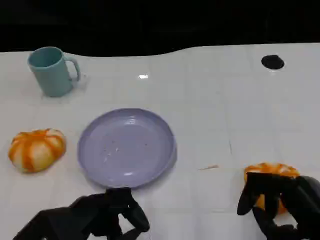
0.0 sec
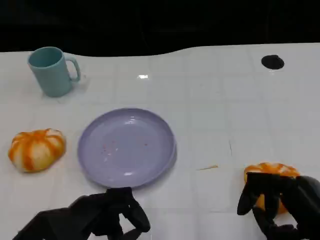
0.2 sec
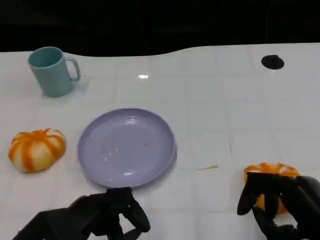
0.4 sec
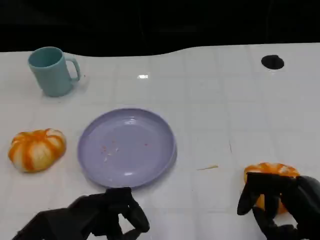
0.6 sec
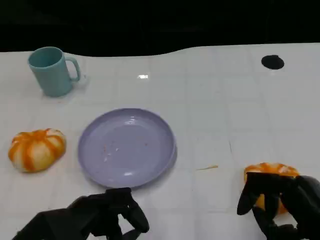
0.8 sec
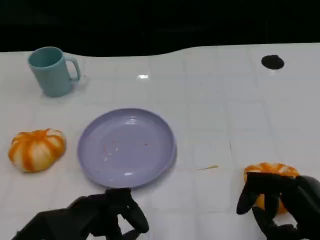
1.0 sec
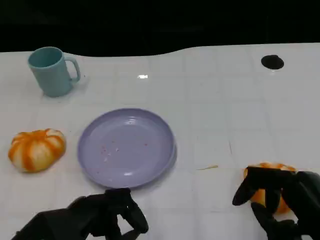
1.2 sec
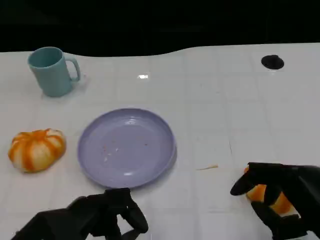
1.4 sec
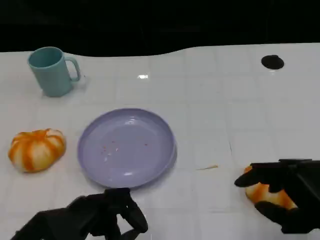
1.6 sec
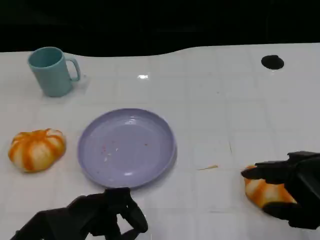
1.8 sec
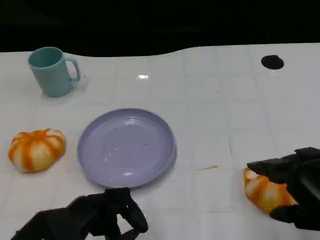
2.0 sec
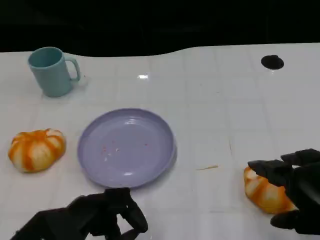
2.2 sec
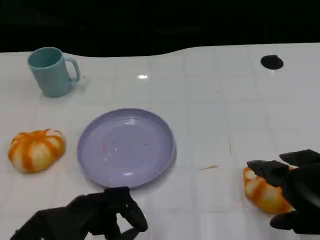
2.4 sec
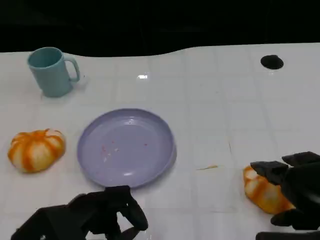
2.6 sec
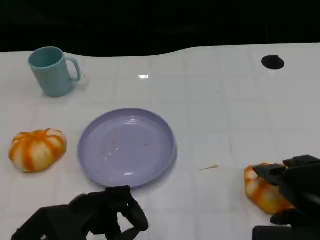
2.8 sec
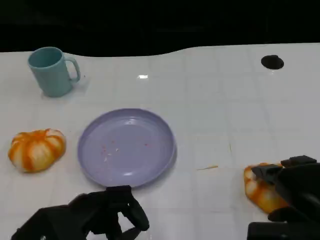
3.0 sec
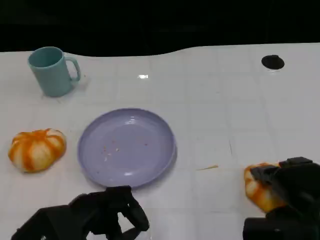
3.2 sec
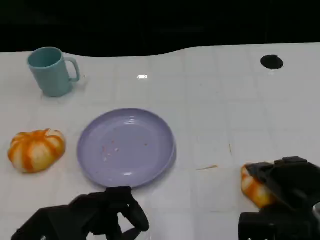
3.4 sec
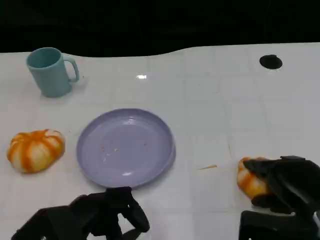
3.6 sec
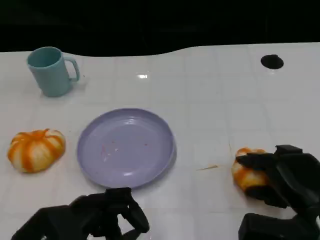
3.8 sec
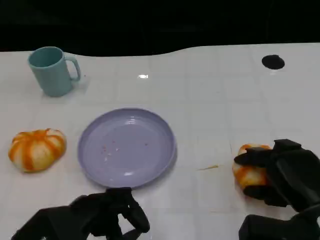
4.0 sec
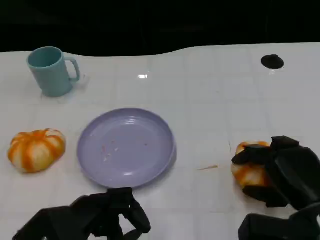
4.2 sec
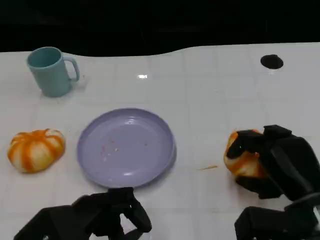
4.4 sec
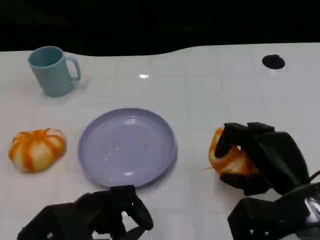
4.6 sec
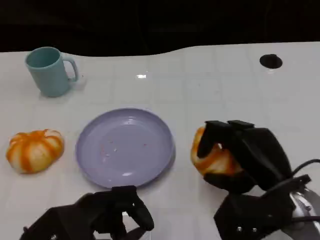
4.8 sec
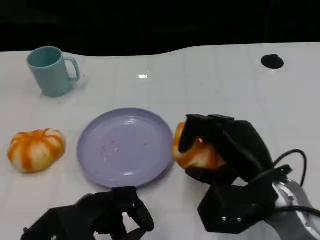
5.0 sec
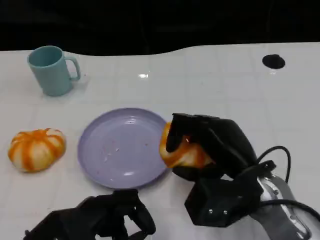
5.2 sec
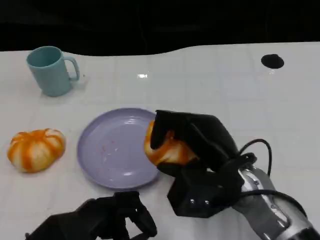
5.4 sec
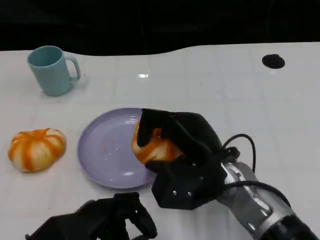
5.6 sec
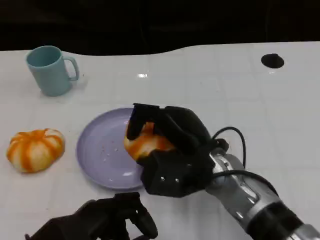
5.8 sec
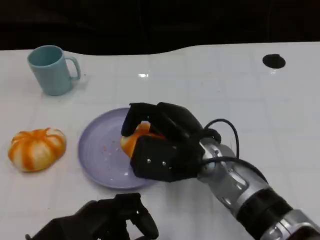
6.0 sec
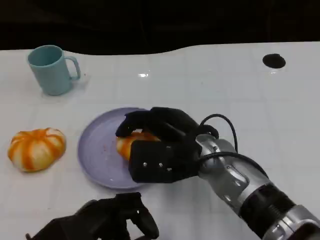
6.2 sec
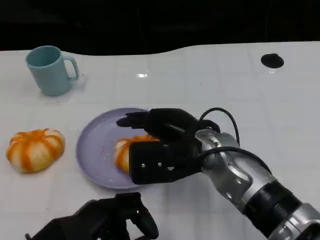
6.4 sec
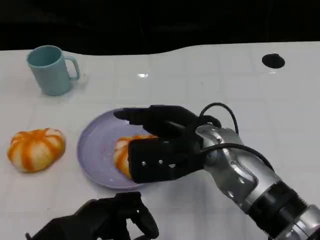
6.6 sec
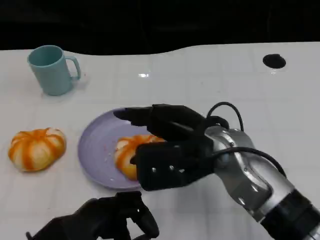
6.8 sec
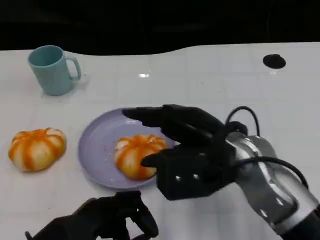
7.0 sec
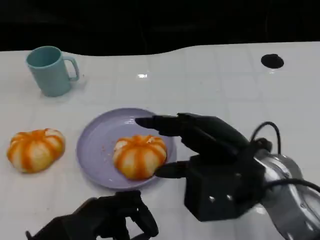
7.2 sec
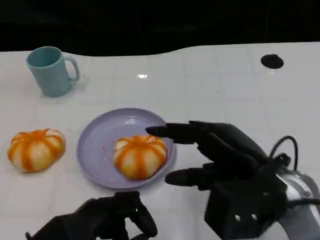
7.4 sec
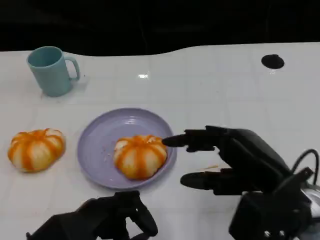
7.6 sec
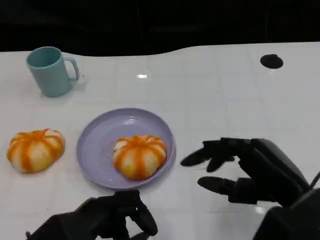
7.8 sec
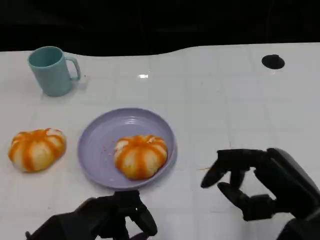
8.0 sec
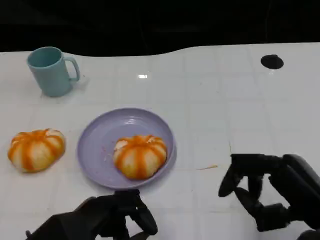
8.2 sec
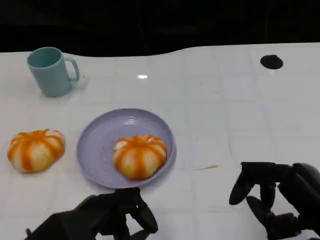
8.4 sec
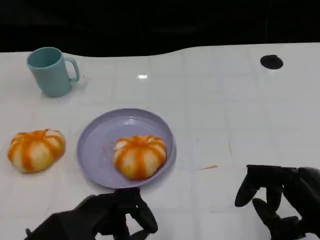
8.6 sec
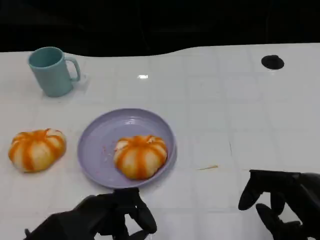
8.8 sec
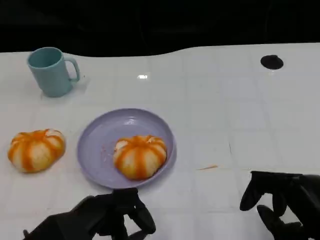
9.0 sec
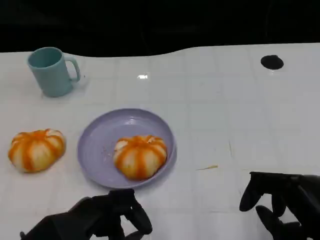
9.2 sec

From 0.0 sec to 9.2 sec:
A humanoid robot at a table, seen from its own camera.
Task of the whole recording: Grasp the bread from the table and place it into the plate.
From 1.6 sec to 3.0 sec: The right hand moves some 5 cm.
From 3.0 sec to 4.6 sec: The right hand changes place by roughly 5 cm.
From 4.6 sec to 6.2 sec: The right hand shifts some 15 cm to the left and forward.
From 6.2 sec to 7.6 sec: The right hand is displaced to the right and backward by roughly 15 cm.
From 7.6 sec to 9.2 sec: The right hand shifts approximately 10 cm to the right and backward.

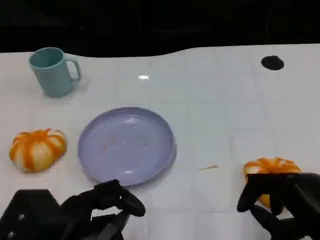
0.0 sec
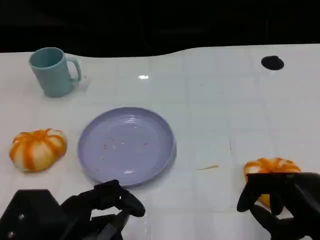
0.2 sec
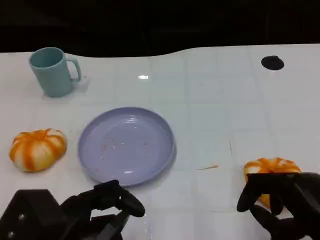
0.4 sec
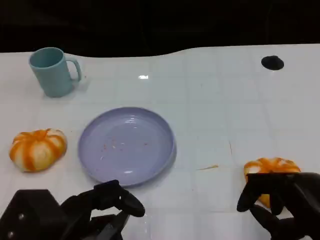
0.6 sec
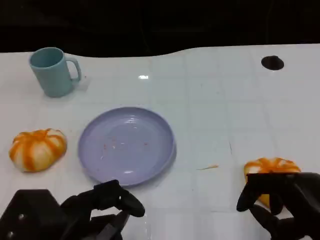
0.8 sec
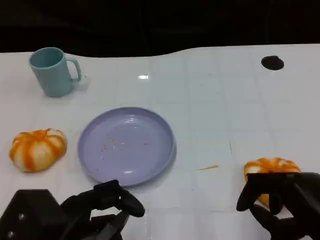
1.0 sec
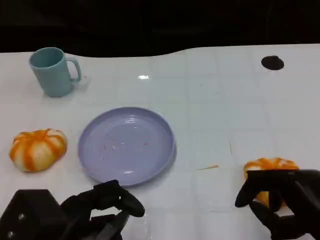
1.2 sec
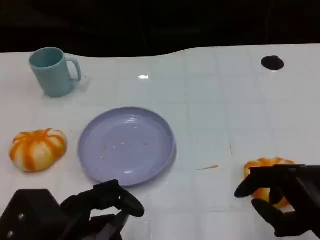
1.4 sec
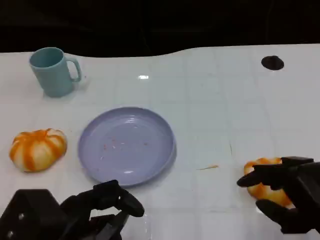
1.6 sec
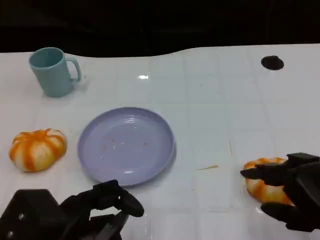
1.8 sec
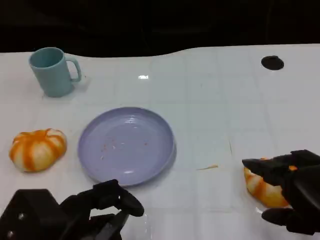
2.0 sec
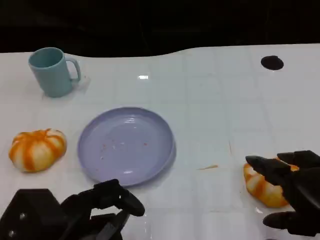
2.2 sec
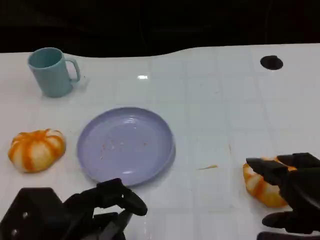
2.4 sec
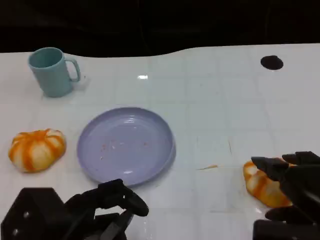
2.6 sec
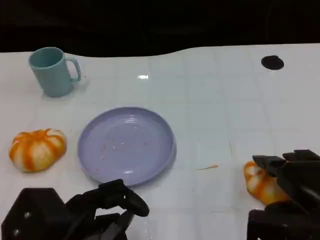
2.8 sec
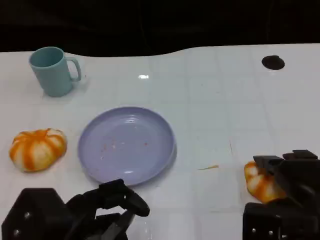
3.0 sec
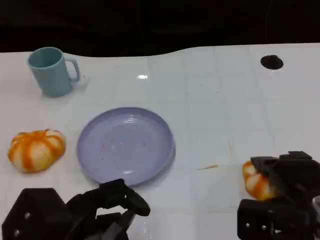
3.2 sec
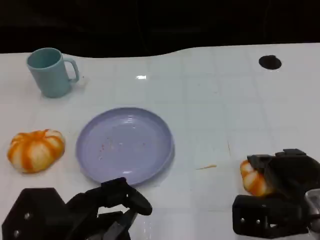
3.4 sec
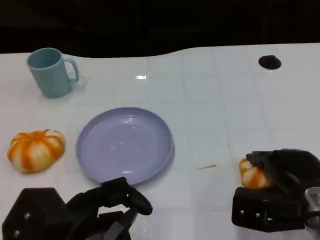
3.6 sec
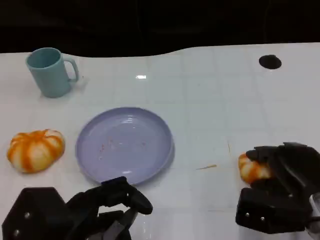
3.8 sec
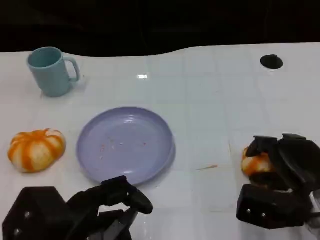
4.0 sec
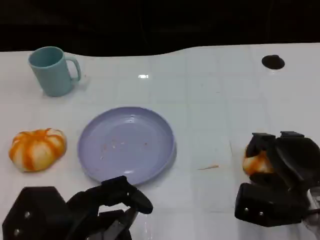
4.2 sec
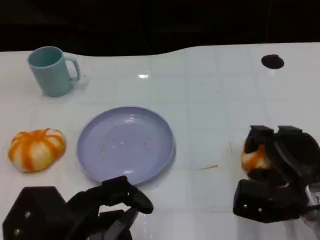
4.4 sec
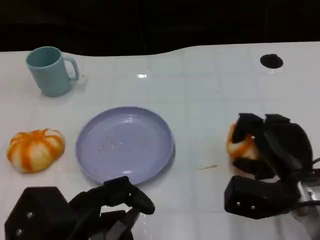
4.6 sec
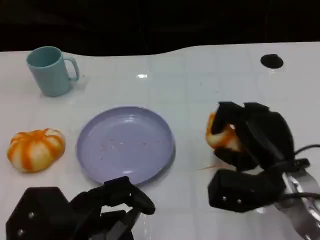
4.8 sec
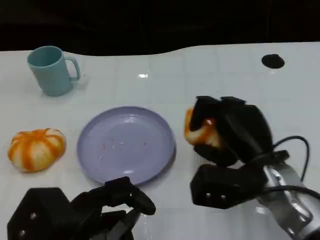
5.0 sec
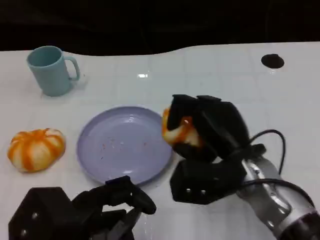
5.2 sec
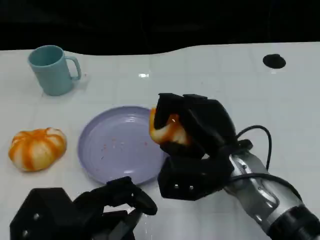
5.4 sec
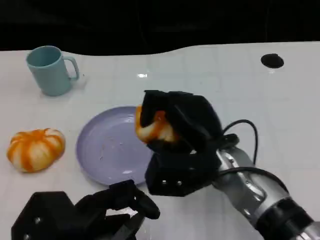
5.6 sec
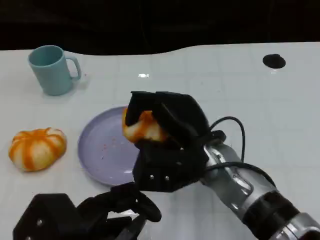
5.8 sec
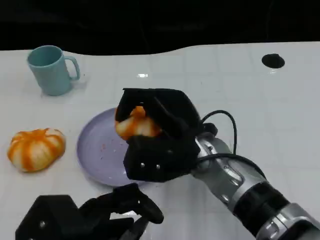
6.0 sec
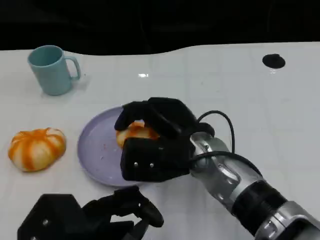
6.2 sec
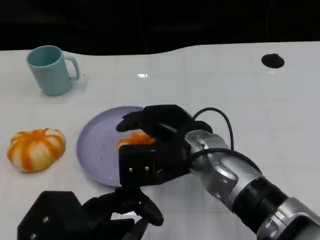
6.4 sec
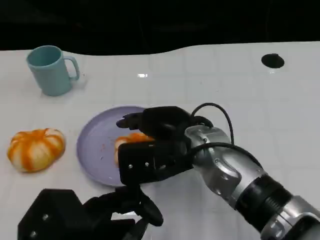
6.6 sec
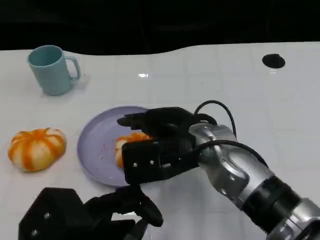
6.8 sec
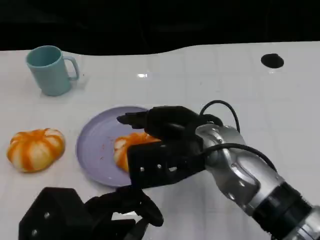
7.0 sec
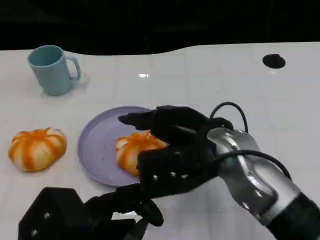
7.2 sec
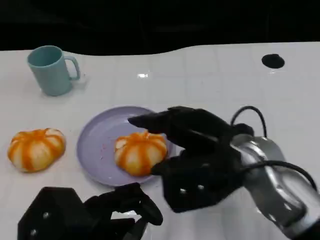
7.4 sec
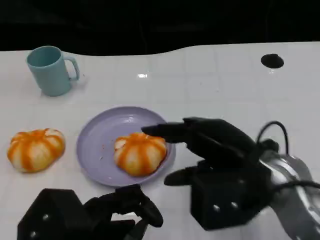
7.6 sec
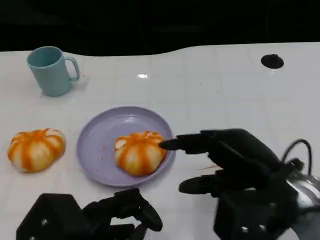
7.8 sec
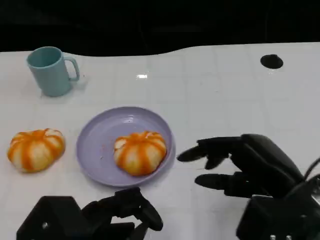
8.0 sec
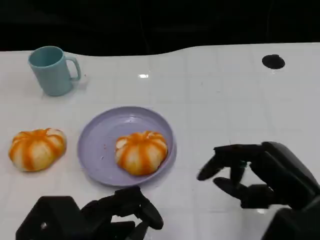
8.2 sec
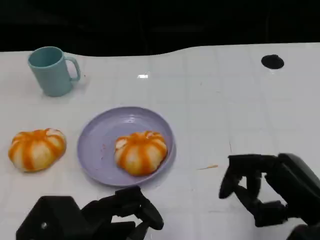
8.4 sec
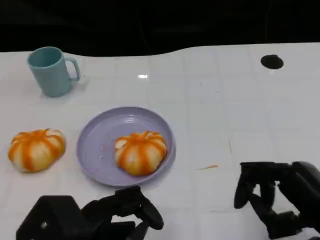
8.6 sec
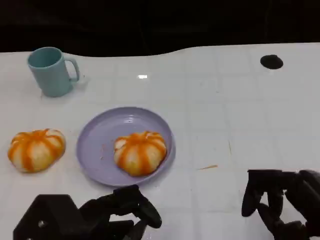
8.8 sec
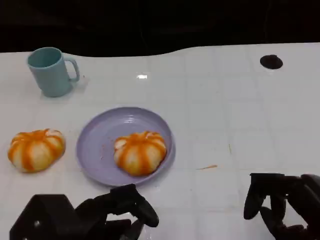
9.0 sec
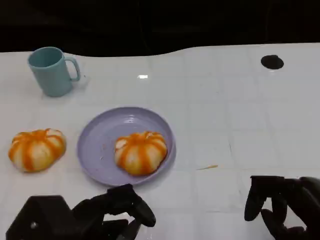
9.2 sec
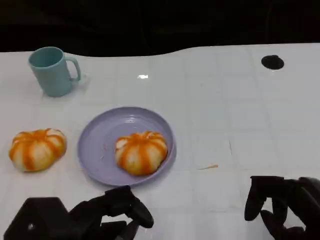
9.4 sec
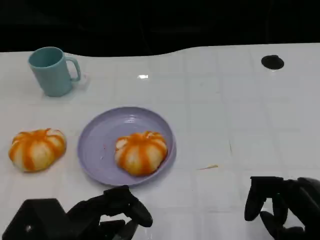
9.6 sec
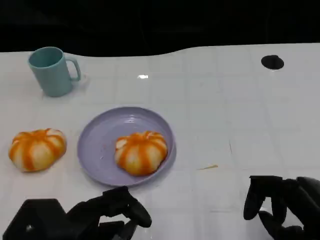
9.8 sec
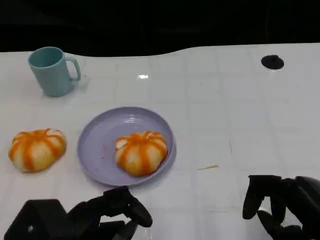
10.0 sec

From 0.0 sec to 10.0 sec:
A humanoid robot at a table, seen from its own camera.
Task of the whole recording: Grasp the bread from the table and place it into the plate.
From 0.0 sec to 1.4 sec: There are only small adjustments of the hands.
From 2.8 sec to 4.2 sec: The right hand goes roughly 10 cm downward and forward.
From 4.2 sec to 5.8 sec: The right hand is displaced to the left and upward by roughly 20 cm.
From 5.8 sec to 7.2 sec: The right hand shifts by about 5 cm.
From 7.2 sec to 8.6 sec: The right hand goes about 20 cm to the right and backward.
From 8.6 sec to 10.0 sec: The hands move only a little.

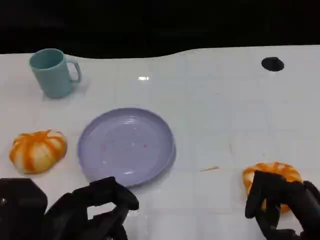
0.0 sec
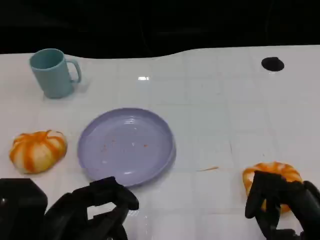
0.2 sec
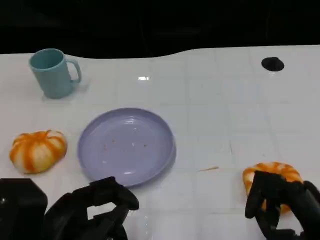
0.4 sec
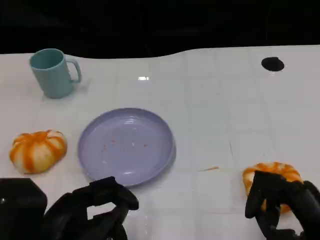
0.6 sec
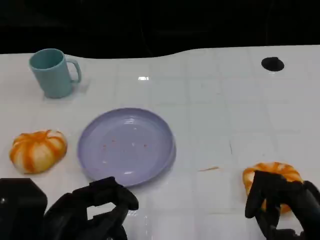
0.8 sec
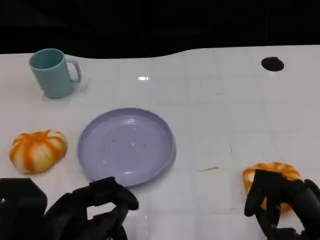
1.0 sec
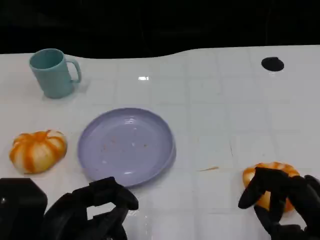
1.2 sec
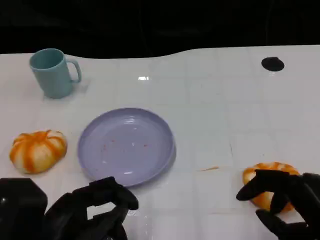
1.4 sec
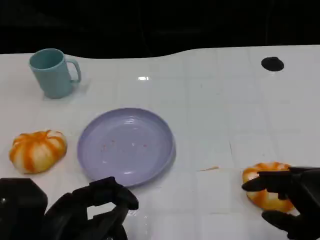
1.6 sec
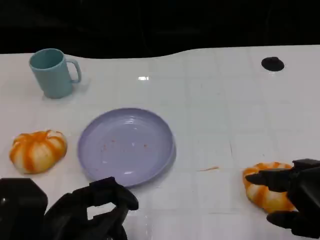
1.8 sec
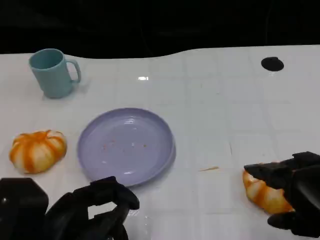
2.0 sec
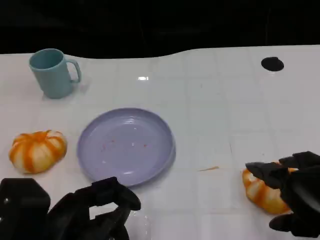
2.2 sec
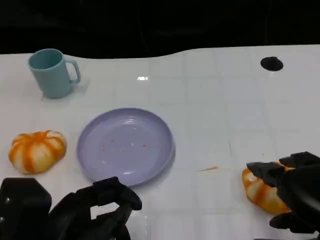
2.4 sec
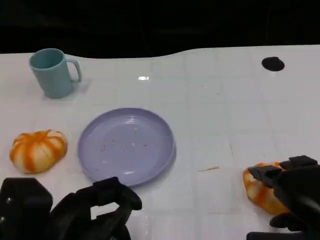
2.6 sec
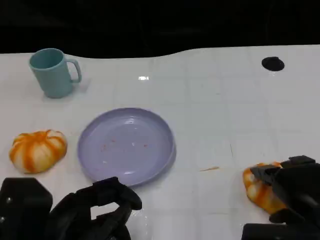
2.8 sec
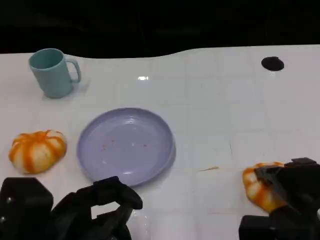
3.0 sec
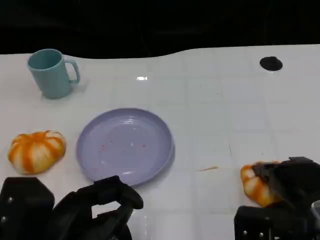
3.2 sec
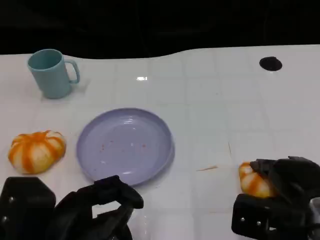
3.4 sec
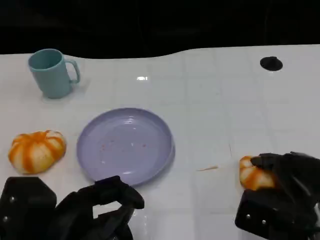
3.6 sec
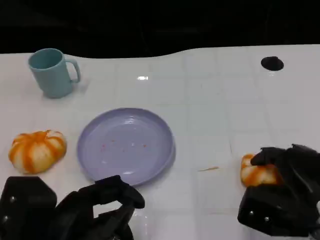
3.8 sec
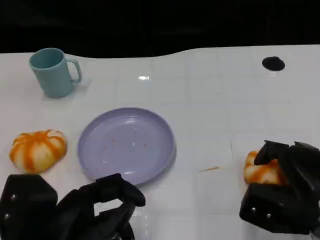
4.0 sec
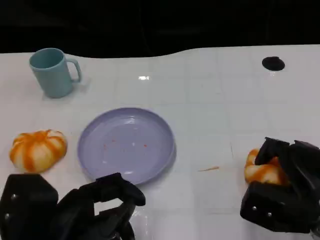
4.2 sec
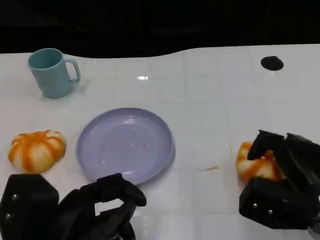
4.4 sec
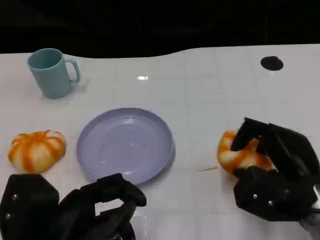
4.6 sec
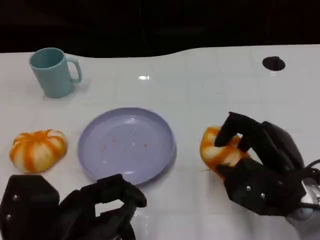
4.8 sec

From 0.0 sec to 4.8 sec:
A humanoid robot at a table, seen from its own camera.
Task of the whole recording: Grasp the bread from the table and place it into the plate.
From 1.6 sec to 3.2 sec: The right hand moves forward, some 5 cm.
